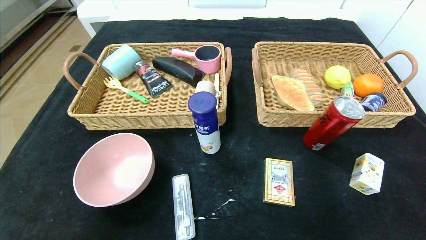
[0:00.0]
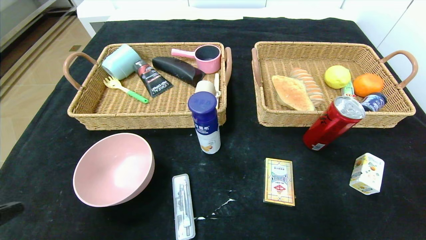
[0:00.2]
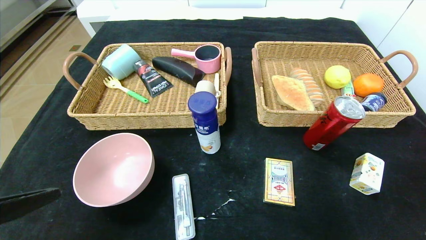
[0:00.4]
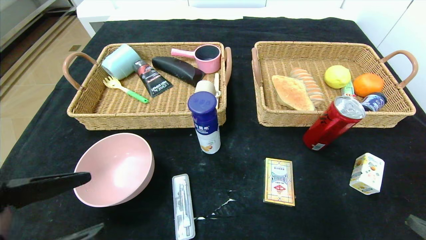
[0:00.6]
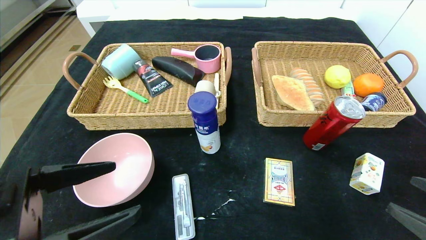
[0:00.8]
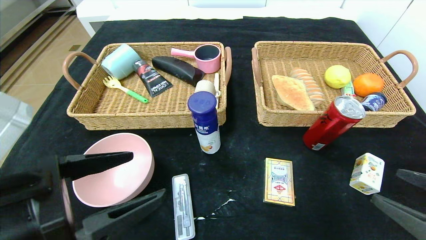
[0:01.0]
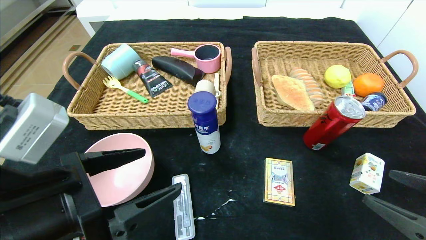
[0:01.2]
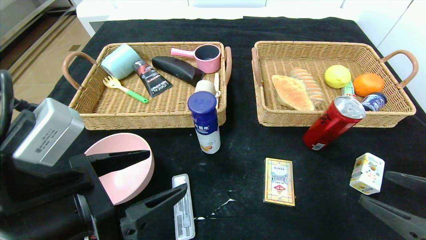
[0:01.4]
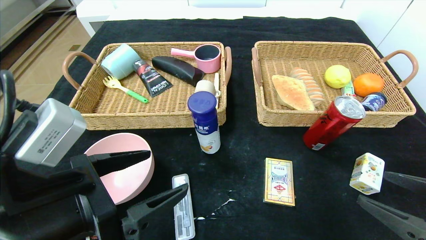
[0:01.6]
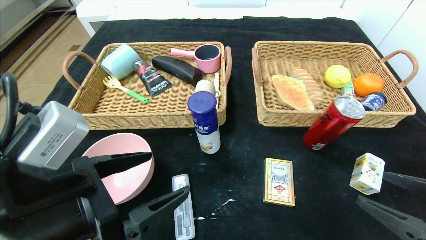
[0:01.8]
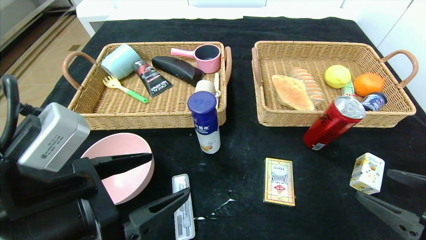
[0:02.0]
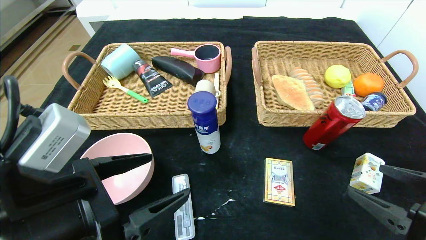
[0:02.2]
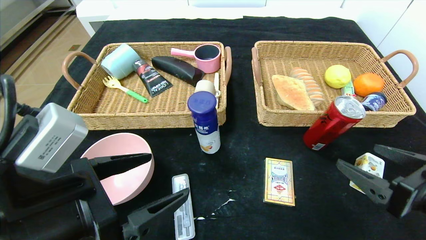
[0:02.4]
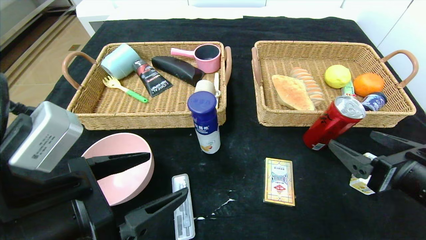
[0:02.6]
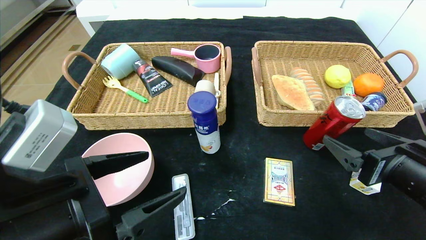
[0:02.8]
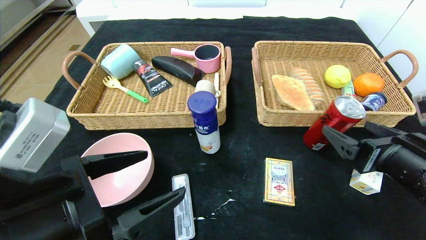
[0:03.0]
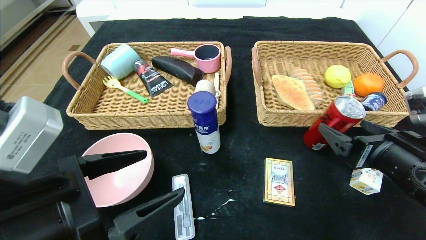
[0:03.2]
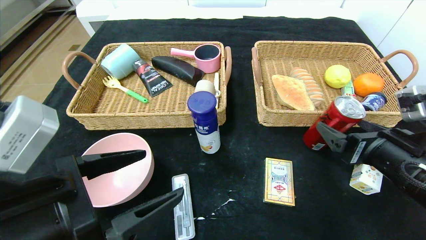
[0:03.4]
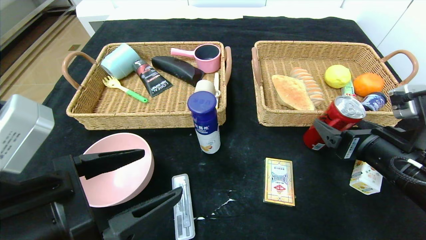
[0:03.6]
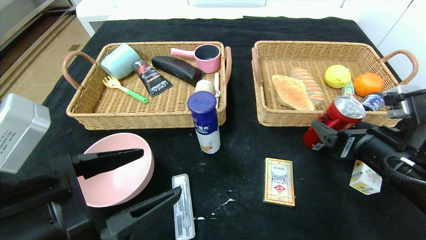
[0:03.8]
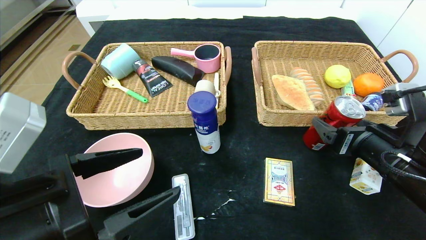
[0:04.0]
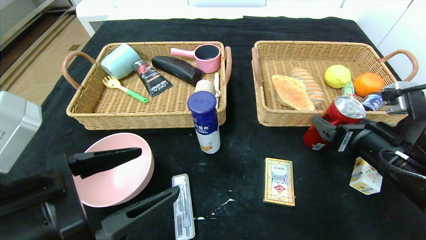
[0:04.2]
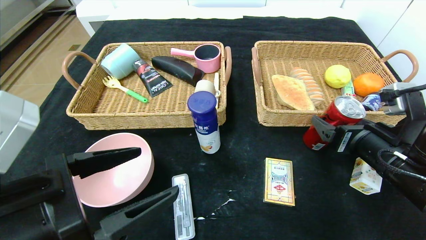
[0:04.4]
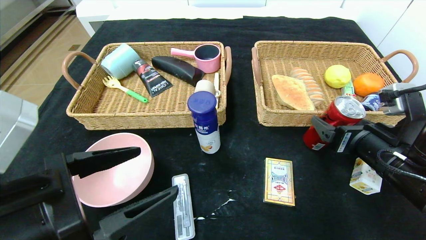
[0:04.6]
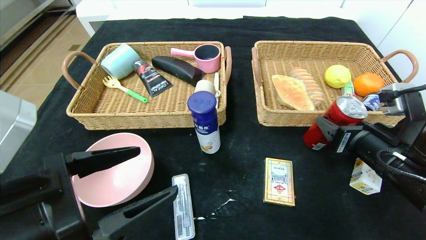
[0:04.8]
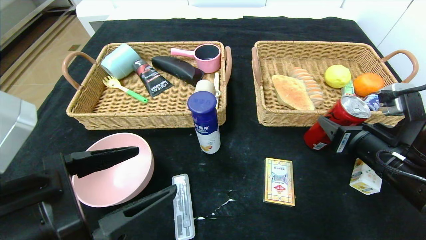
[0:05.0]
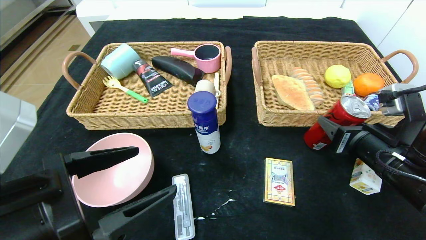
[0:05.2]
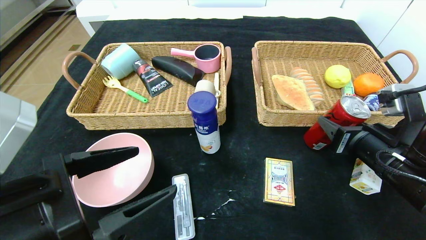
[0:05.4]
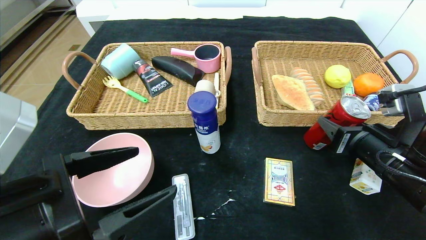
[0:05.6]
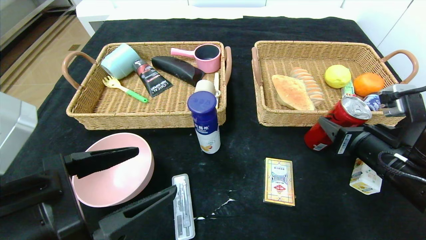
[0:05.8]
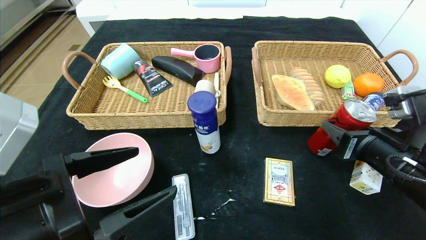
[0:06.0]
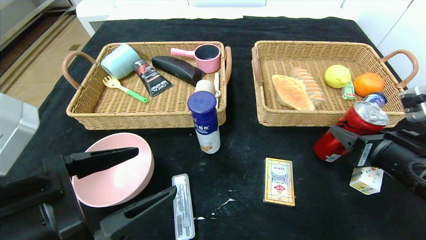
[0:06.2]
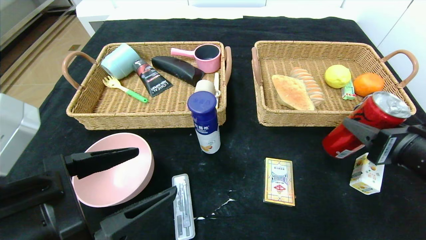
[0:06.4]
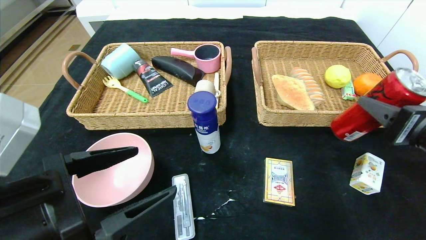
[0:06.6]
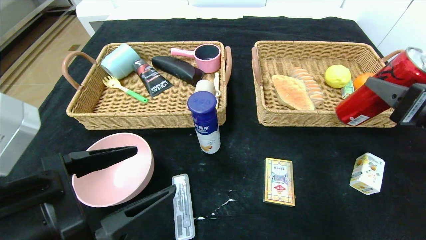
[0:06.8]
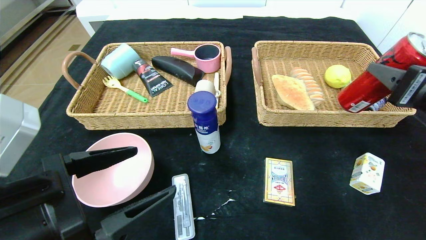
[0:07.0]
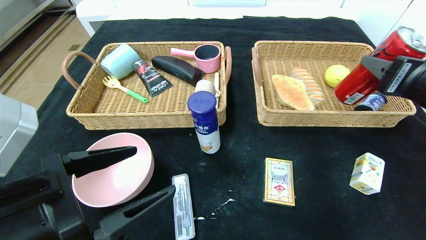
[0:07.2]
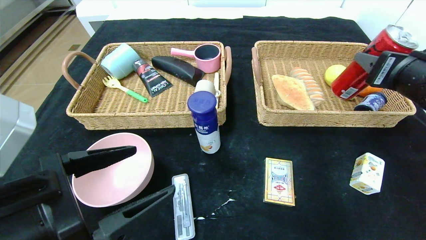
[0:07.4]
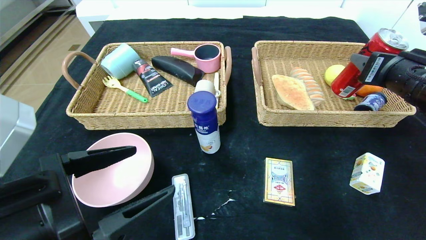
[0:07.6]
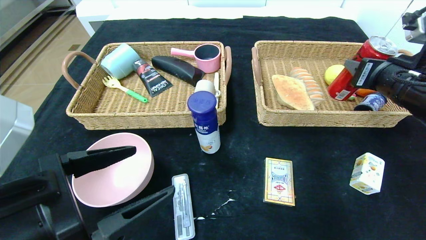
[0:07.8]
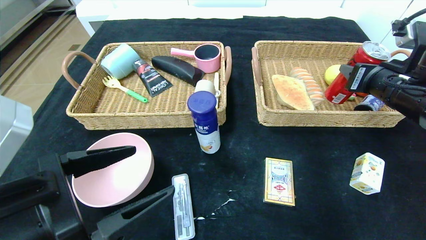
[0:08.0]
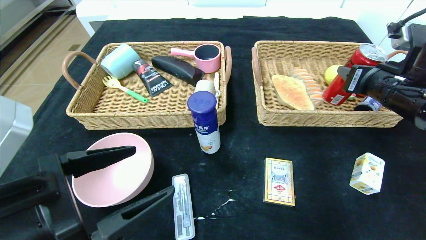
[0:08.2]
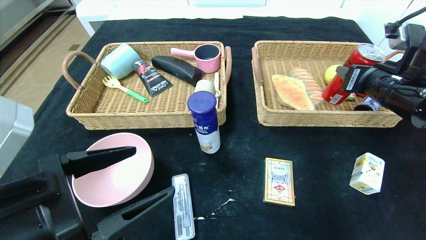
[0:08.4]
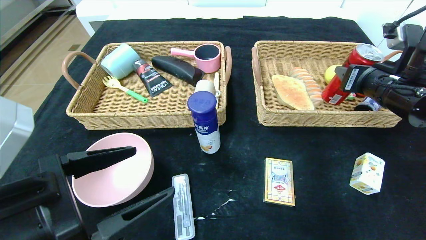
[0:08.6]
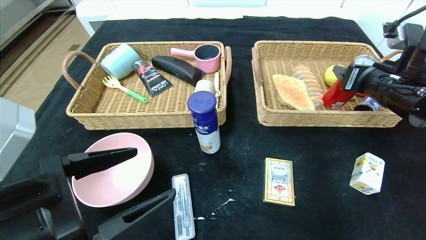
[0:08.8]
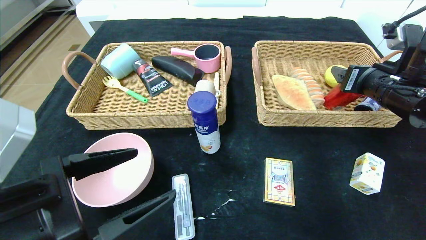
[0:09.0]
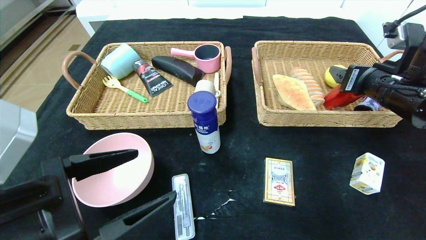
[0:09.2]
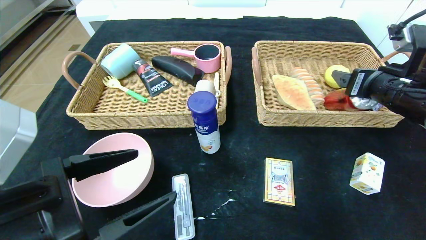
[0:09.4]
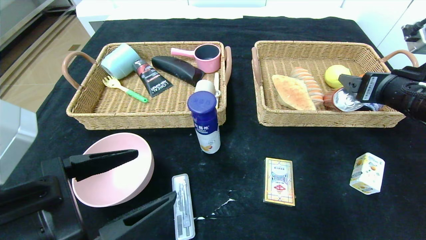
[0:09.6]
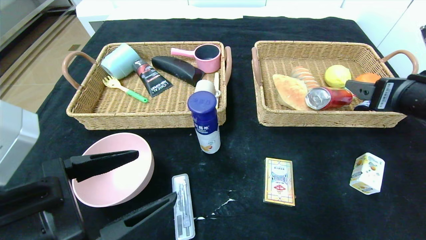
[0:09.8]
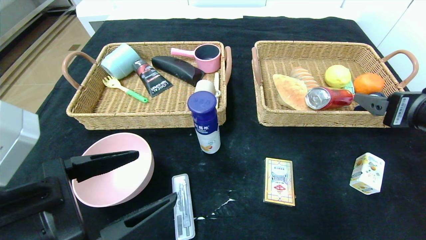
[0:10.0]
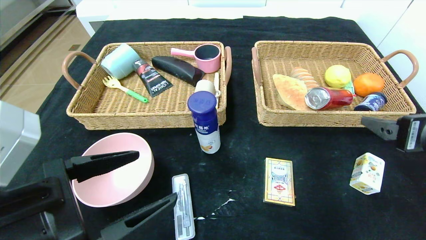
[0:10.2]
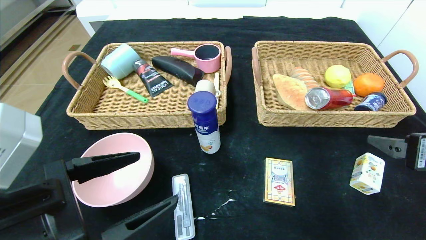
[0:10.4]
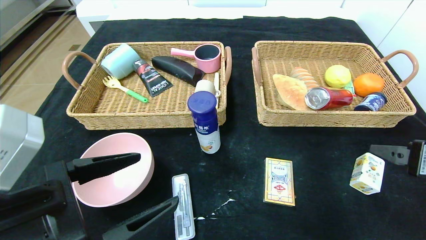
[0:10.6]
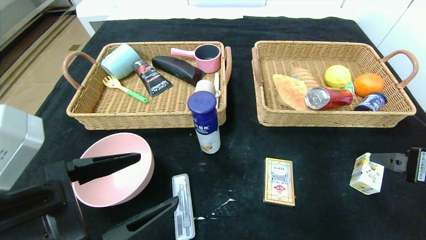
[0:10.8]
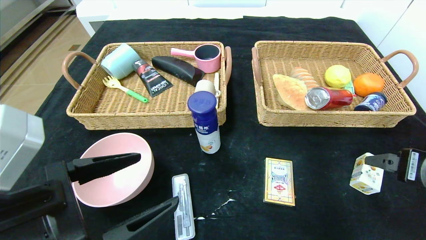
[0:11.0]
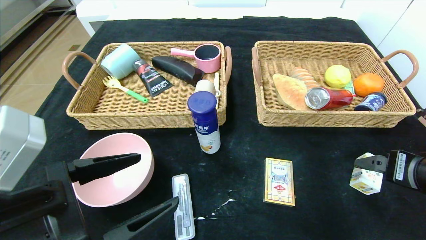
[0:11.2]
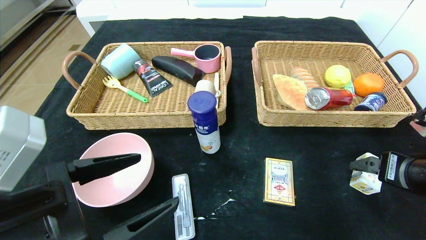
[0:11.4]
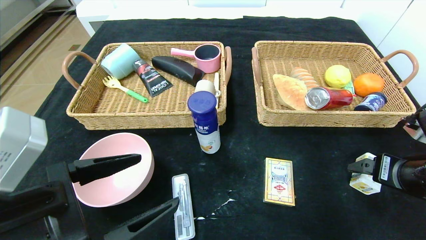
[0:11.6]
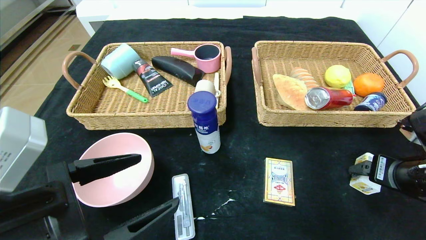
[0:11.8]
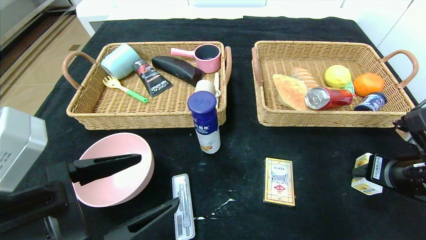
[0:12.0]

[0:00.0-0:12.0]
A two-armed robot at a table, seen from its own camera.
Step, 0:00.0 to 0:09.0: Grasp the canned cola and put it in the right basket.
0:00.0 to 0:01.6: The left gripper shifts about 15 cm forward and to the right. Meanwhile the right gripper goes roughly 10 cm forward.
0:01.6 to 0:03.0: The right gripper heads forward and to the left, covering about 10 cm.
0:03.0 to 0:04.4: The grippers move only a little.
0:04.4 to 0:06.0: The right gripper closes up.
0:06.0 to 0:07.6: The right gripper travels upward and forward by roughly 10 cm.
0:07.6 to 0:09.0: The right gripper opens.
0:09.0 to 0:10.4: The right gripper is displaced backward by about 15 cm.
0:10.4 to 0:12.0: The right gripper travels downward by roughly 5 cm, and closes.

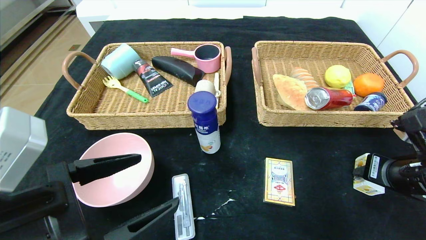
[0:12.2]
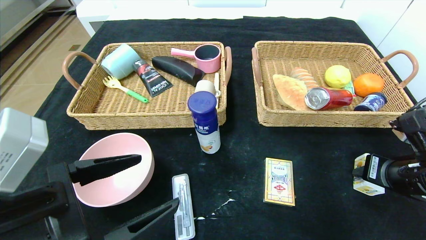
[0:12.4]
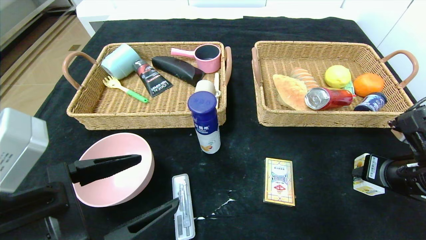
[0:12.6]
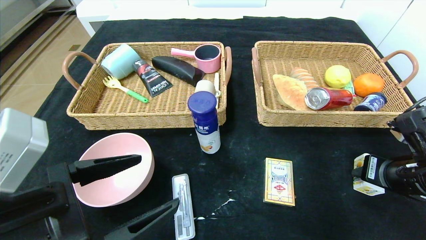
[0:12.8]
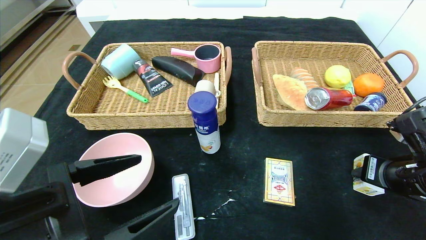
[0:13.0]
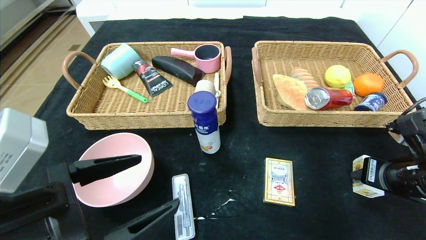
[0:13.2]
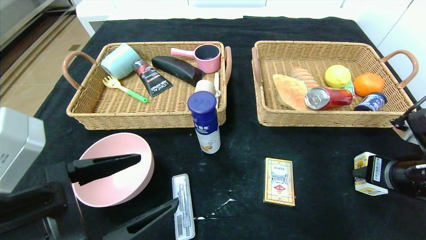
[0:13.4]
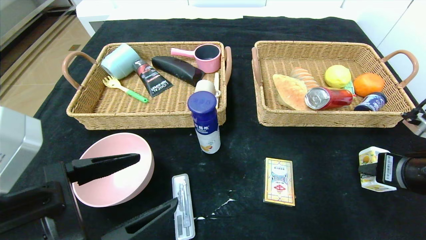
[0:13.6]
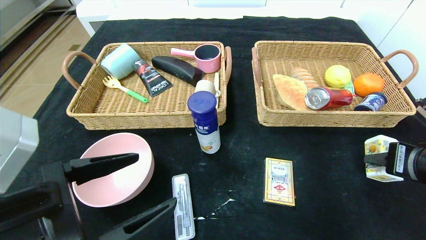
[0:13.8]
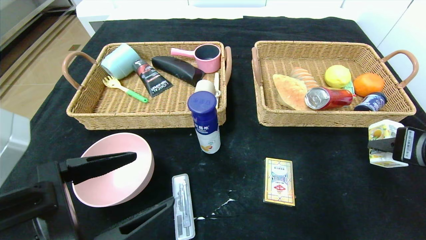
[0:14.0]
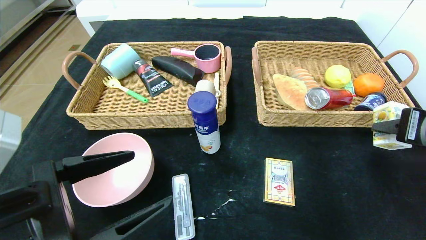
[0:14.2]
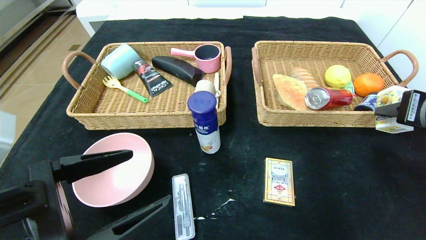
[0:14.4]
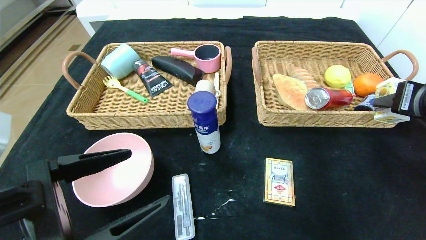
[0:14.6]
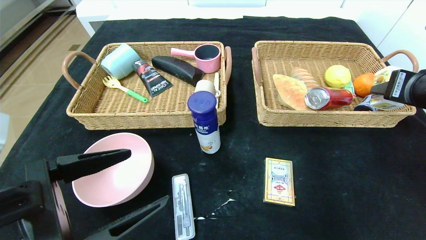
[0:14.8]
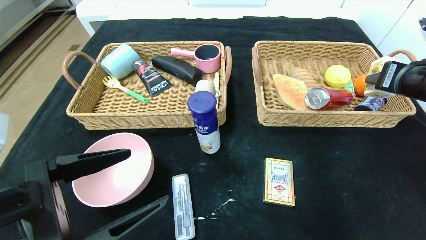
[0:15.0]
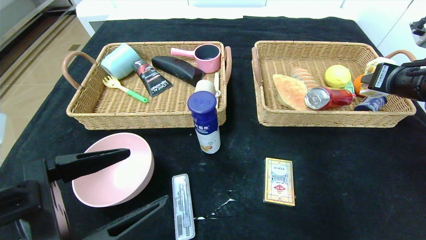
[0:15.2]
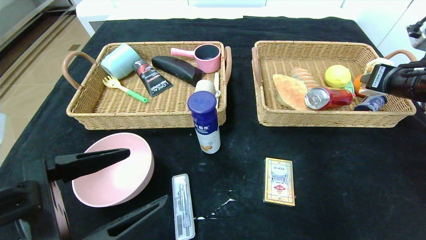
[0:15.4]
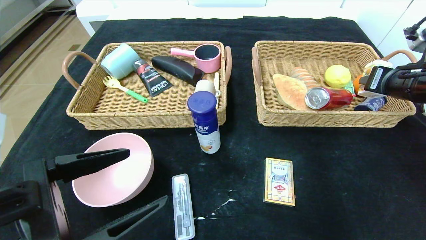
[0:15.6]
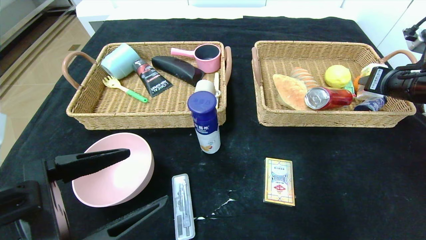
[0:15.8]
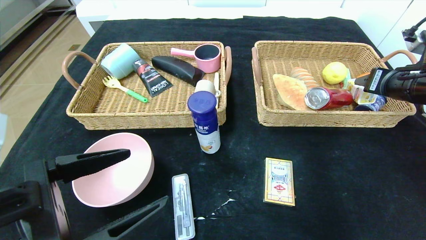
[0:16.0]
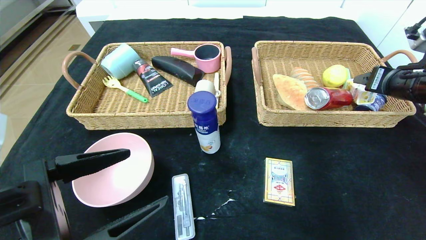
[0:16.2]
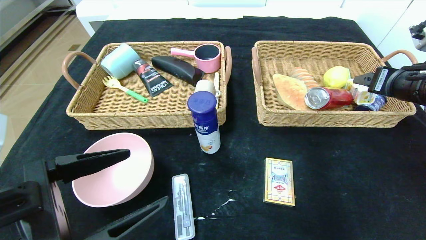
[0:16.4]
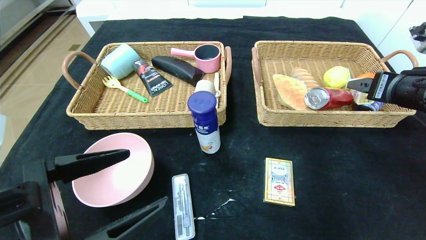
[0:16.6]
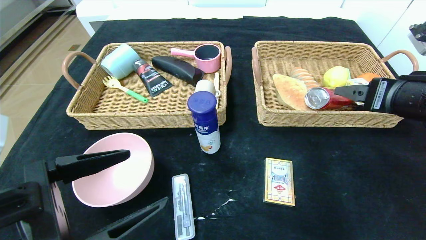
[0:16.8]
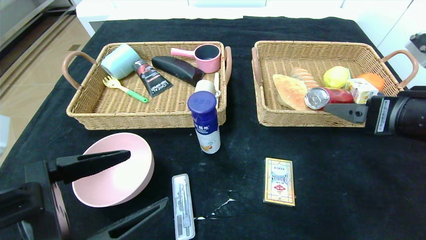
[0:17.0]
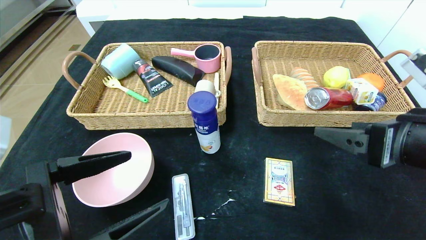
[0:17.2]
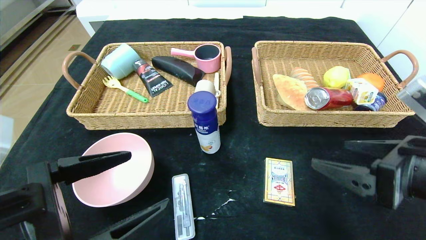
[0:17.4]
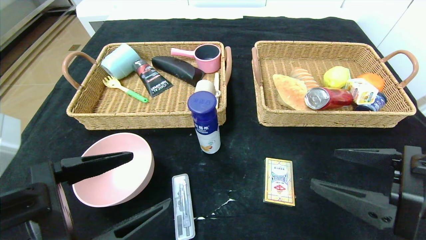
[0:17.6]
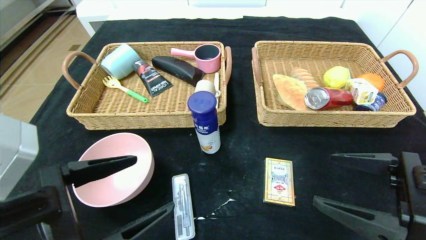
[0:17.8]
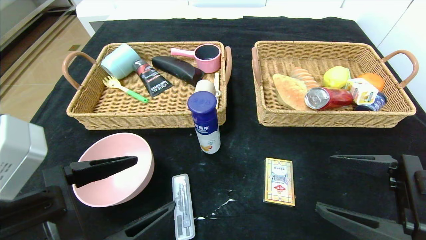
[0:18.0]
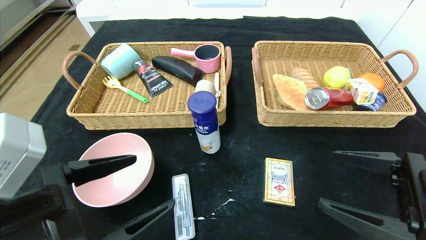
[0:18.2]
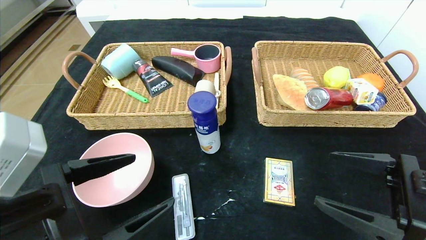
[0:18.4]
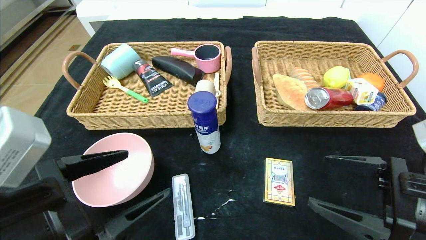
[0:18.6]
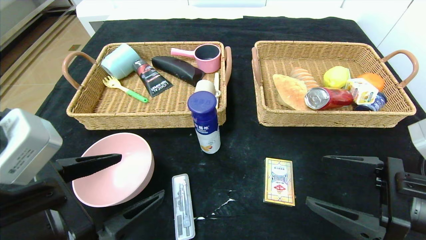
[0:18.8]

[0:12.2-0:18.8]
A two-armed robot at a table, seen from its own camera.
Step, 0:12.2 to 0:16.0: Grasp the square chewing gum and put it in the right basket.
0:12.2 to 0:13.8: The right gripper shifts by about 5 cm.
0:13.8 to 0:15.4: The right gripper moves forward and upward, approximately 15 cm.
0:15.4 to 0:17.2: The right gripper travels backward and to the left by roughly 15 cm, and opens.
0:17.2 to 0:18.8: The right gripper is displaced downward by roughly 5 cm.
